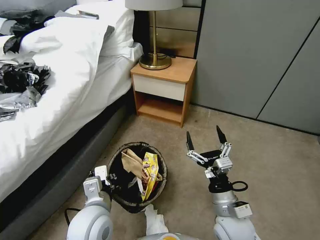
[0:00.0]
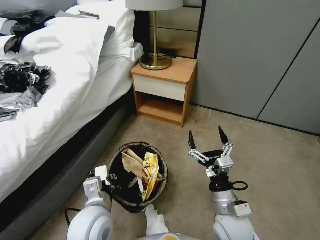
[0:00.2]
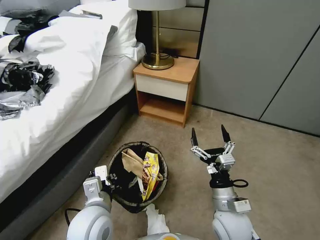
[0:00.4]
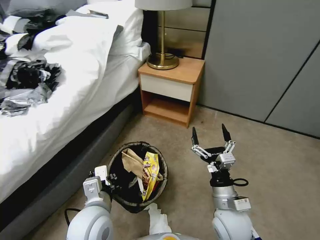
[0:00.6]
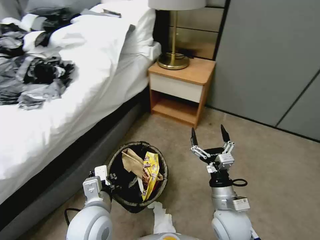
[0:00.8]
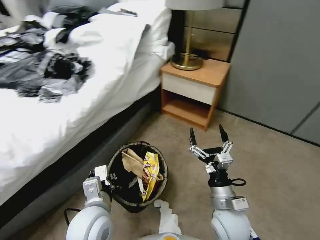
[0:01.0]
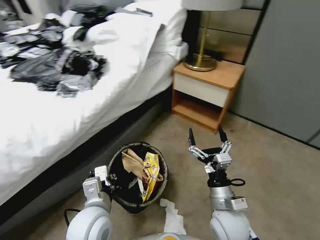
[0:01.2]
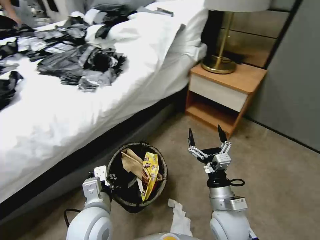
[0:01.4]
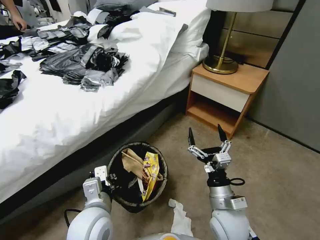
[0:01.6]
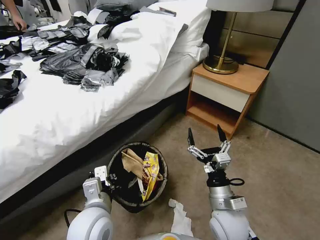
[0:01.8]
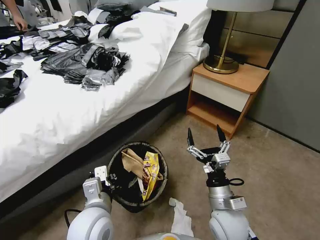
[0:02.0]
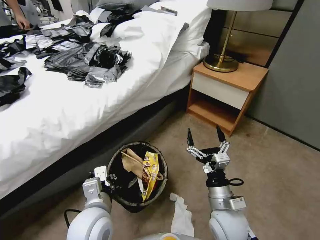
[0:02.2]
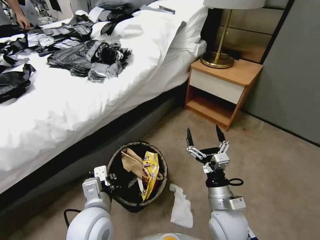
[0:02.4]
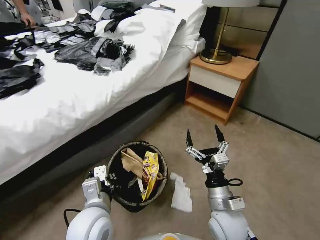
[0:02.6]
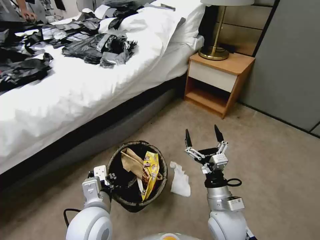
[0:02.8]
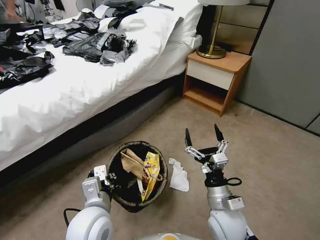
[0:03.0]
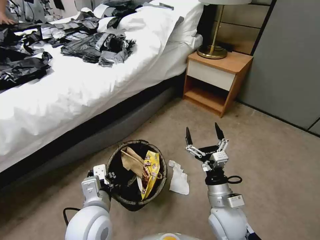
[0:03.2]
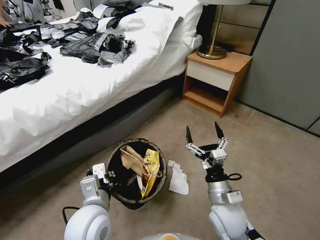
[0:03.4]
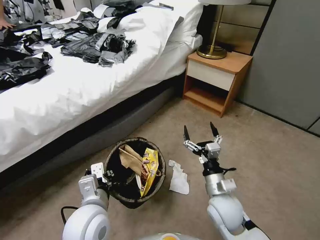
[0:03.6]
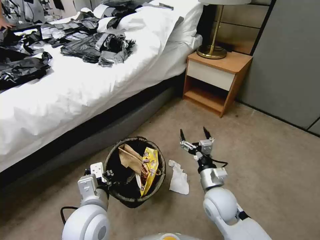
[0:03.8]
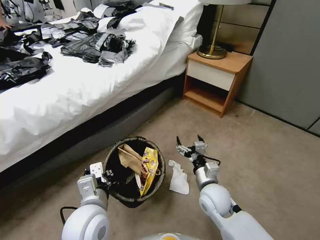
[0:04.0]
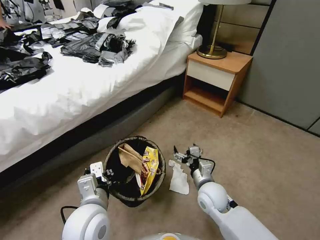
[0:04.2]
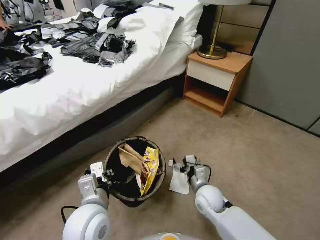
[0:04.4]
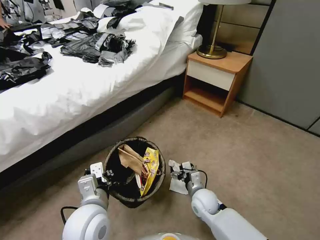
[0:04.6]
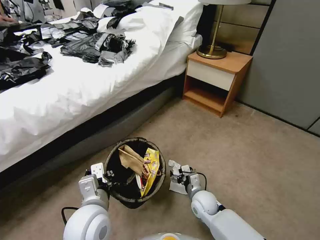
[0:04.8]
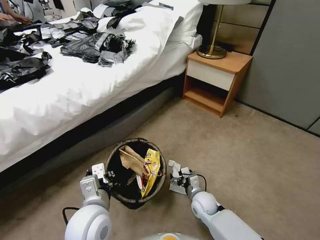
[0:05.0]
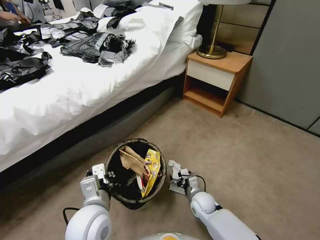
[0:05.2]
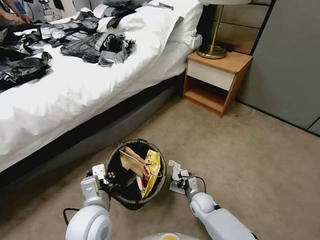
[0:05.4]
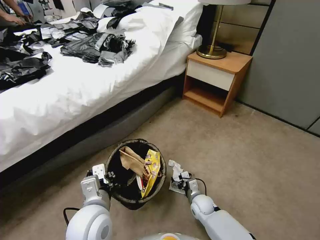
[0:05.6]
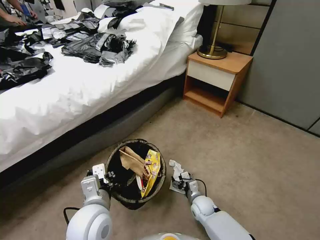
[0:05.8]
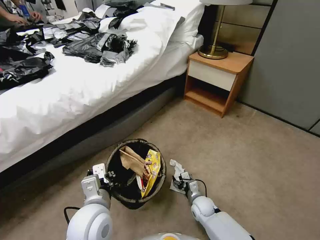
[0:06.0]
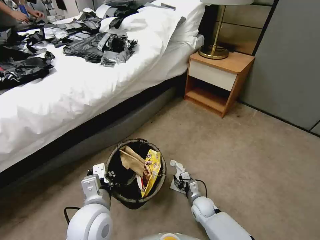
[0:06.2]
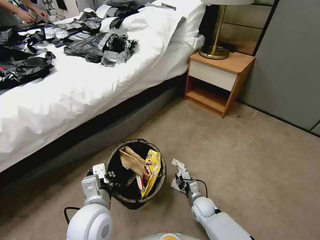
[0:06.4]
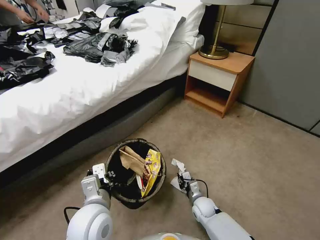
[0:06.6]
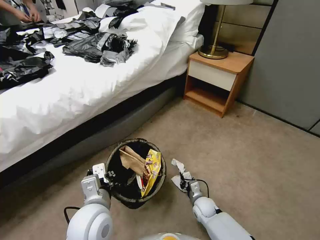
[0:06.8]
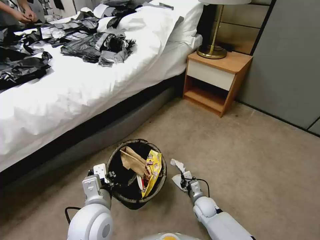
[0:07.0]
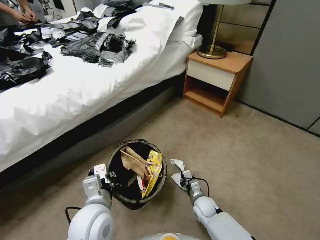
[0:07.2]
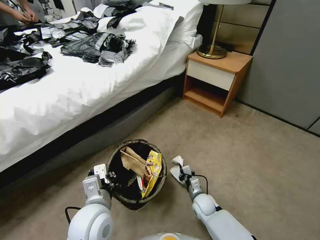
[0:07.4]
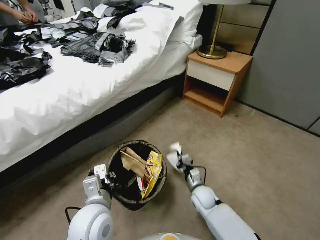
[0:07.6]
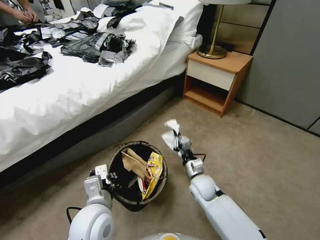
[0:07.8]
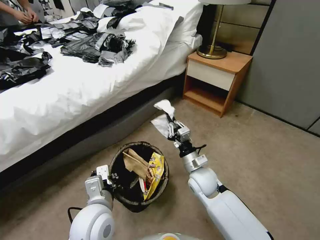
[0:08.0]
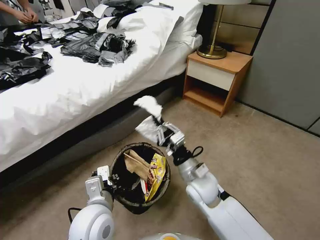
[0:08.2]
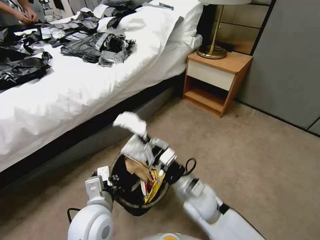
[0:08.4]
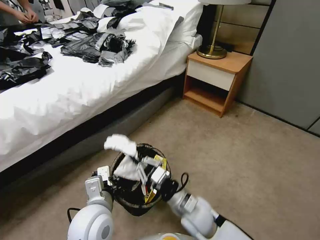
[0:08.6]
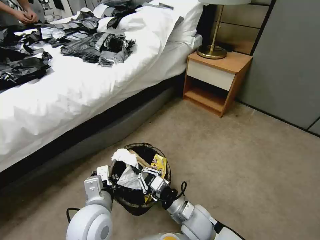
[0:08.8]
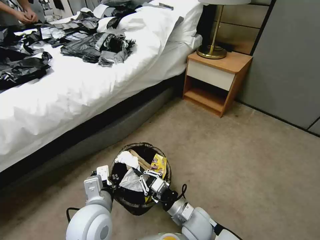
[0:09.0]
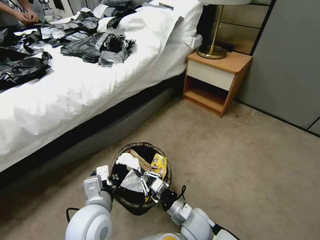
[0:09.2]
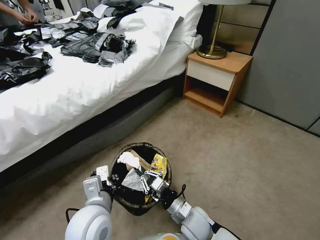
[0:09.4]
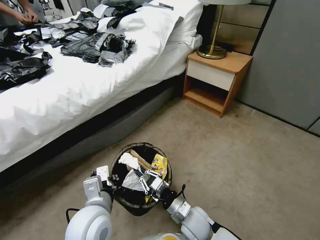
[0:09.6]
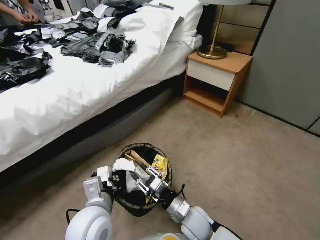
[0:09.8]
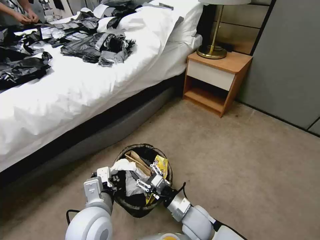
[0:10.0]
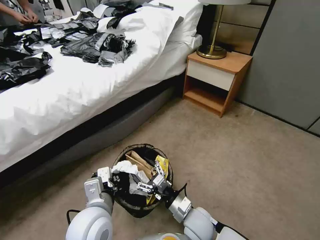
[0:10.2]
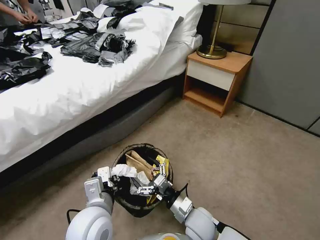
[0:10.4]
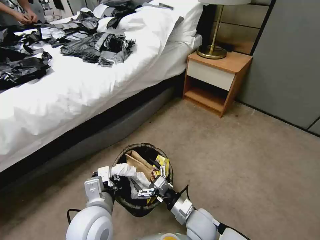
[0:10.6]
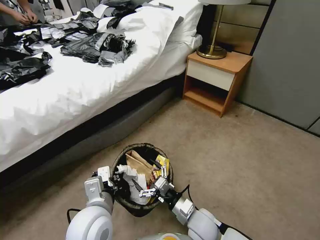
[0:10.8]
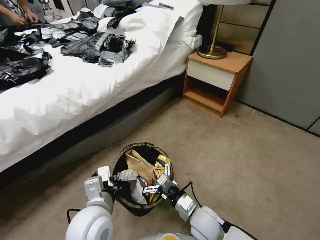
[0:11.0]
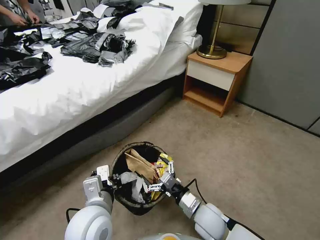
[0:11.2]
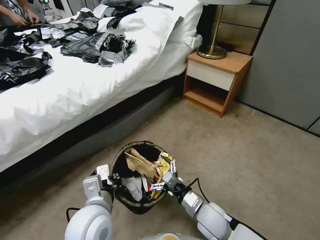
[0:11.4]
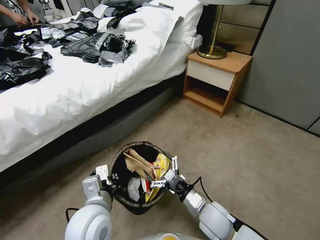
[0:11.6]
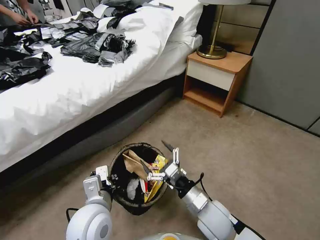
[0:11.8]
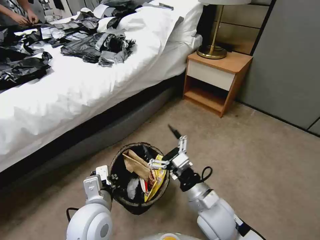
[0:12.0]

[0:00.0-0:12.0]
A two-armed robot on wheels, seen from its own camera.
Task of the whole recording: Pick up the trash bin, then pick up the garbage from the floor and place it into the trash bin.
0:03.0 to 0:04.4: The right gripper heads forward and downward, covering about 10 cm.
0:04.4 to 0:06.0: The right gripper is displaced downward by approximately 15 cm.
0:06.0 to 0:07.6: The right gripper heads upward, covering approximately 5 cm, and closes its fingers.
0:07.6 to 0:09.0: The right gripper moves backward, upward and to the left, approximately 15 cm.
0:09.0 to 0:10.4: The right gripper opens.
0:10.4 to 0:12.0: The right gripper heads upward, covering about 10 cm.

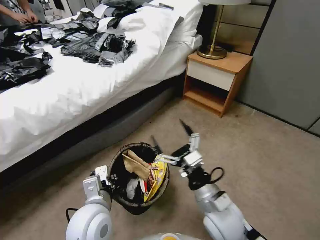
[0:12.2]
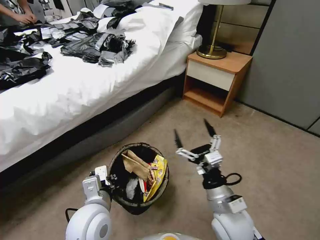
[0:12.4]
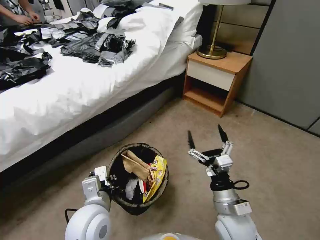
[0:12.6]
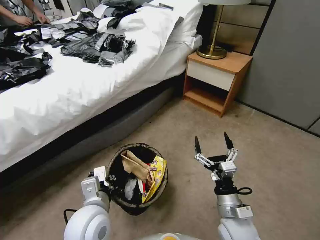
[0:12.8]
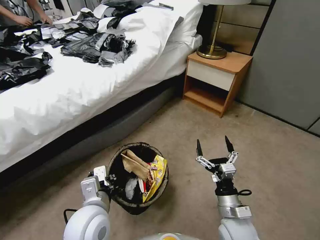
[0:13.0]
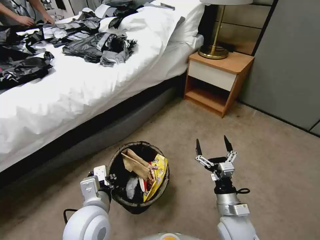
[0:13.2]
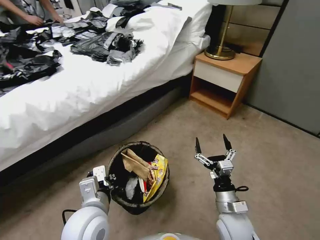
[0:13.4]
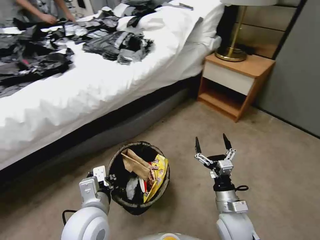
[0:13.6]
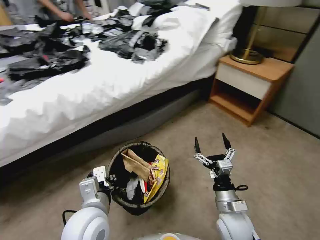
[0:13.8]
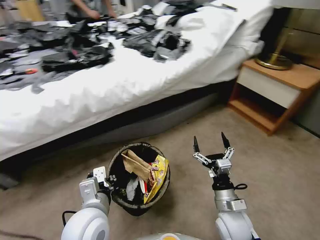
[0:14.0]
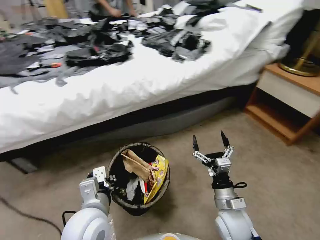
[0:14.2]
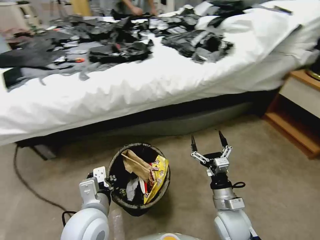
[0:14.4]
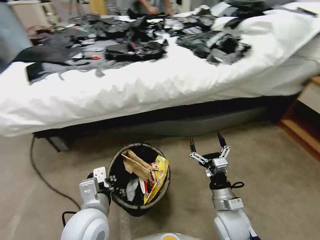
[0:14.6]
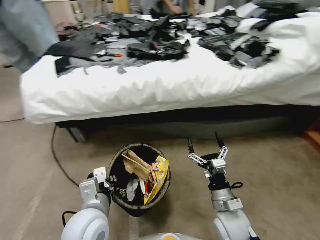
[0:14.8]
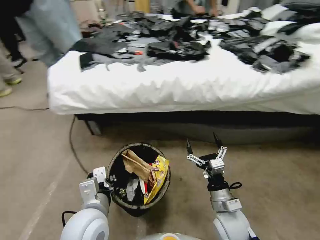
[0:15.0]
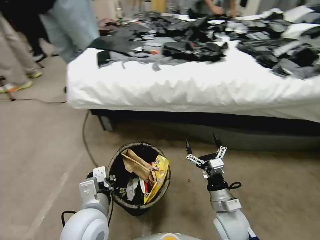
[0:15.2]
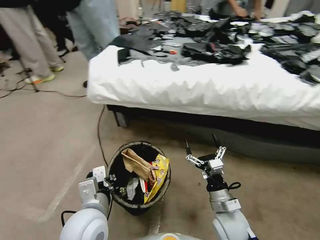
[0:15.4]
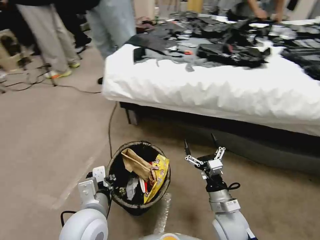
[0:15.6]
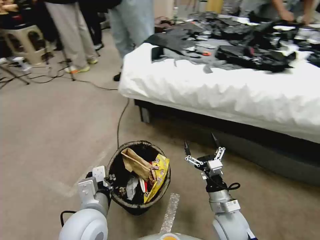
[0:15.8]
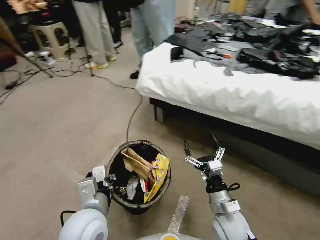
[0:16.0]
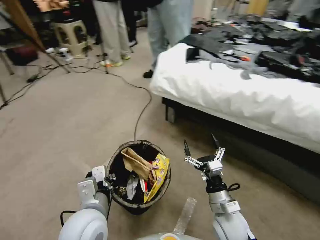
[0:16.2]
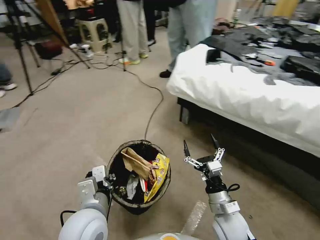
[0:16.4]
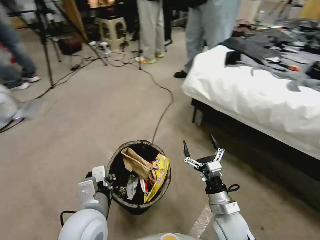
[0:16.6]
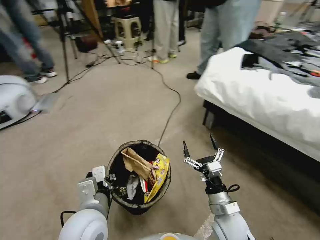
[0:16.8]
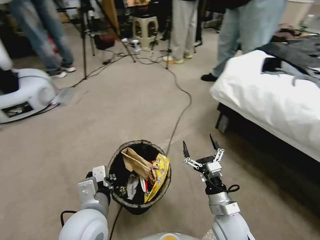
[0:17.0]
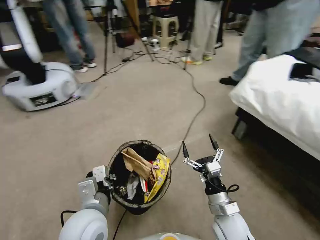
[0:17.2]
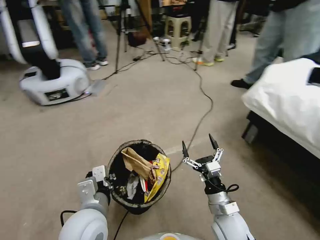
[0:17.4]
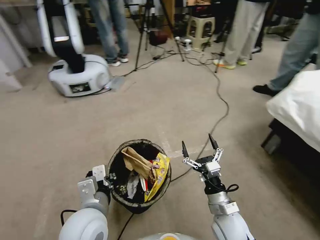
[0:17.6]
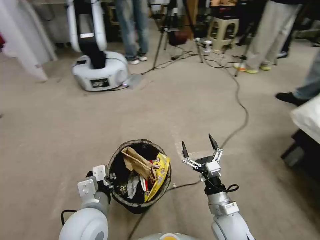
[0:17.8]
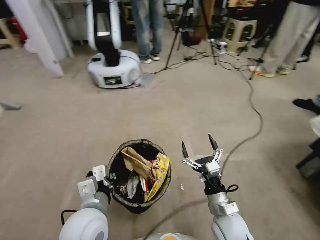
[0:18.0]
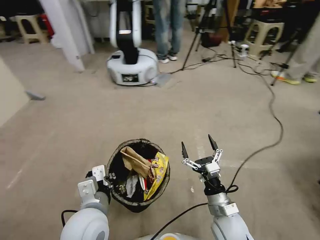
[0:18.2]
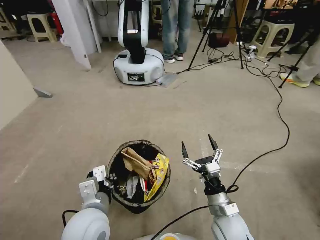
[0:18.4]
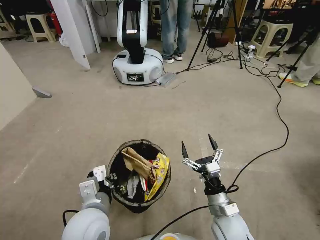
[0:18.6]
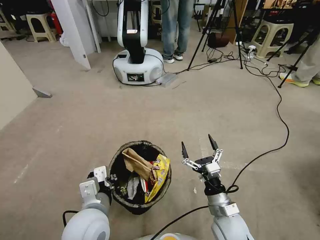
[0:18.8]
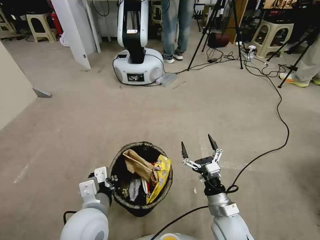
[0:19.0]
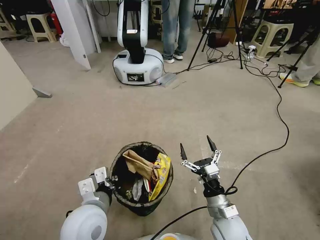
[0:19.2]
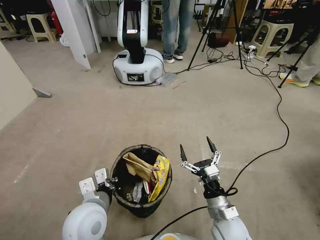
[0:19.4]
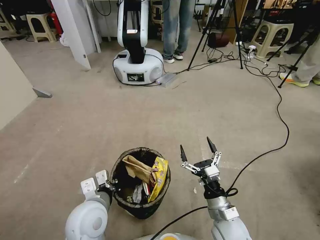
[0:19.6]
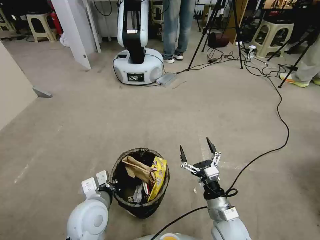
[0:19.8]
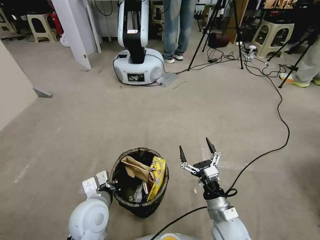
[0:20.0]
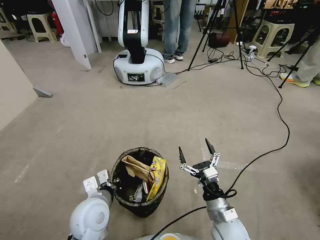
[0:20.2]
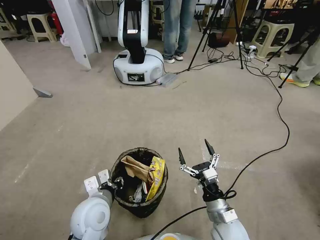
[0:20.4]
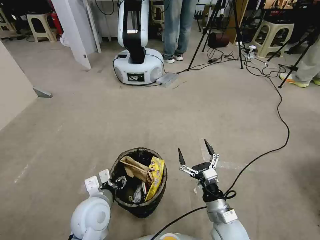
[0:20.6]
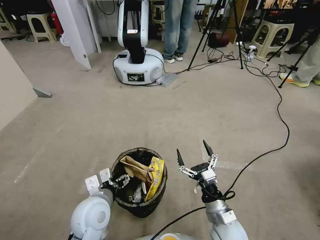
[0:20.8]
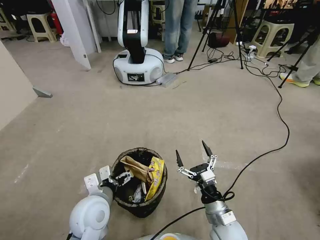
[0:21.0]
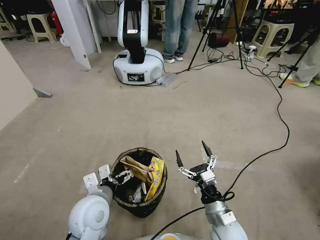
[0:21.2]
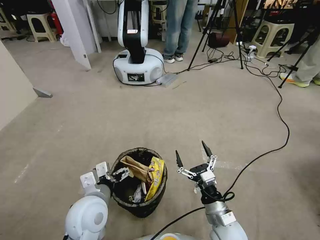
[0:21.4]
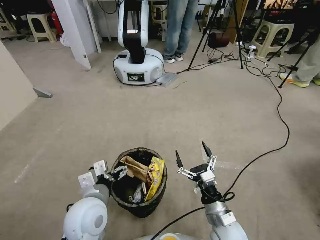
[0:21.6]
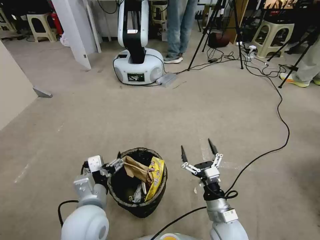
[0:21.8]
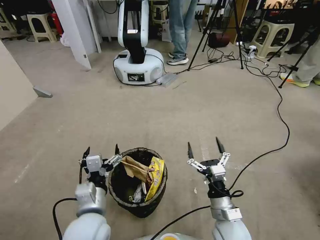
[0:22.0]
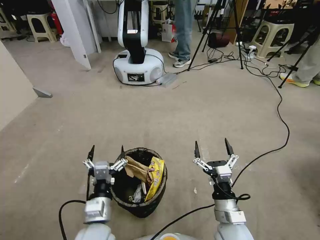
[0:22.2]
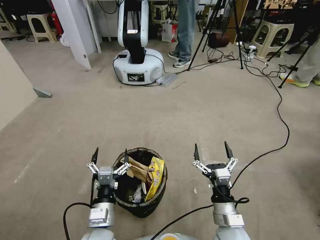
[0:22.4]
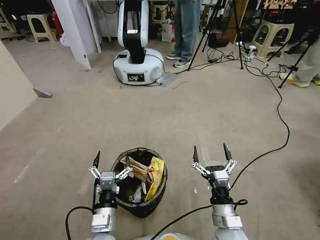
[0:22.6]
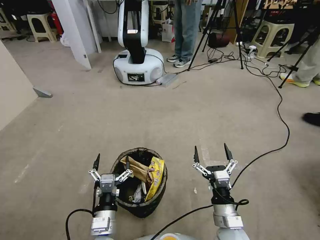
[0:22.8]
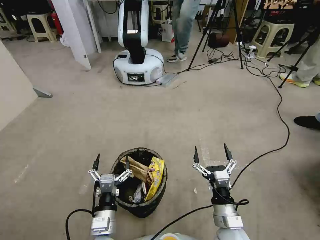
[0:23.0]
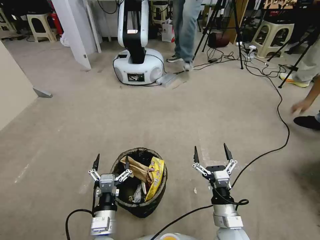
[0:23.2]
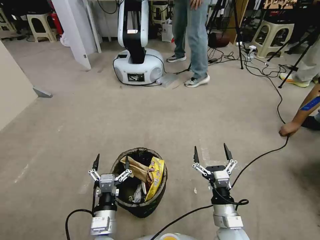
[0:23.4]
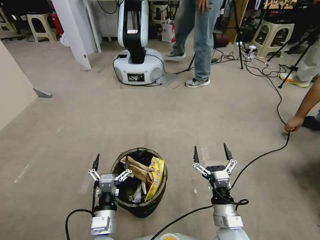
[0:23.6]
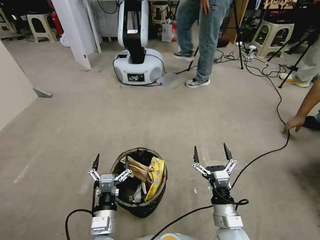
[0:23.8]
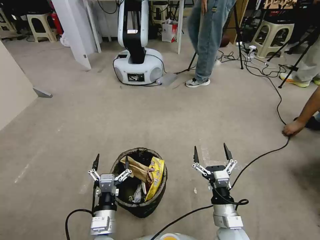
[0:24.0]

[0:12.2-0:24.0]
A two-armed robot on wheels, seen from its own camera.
Task of the whole recording: Pick up the trash bin, then pick up the garbage from the floor and place it into the trash bin.
0:12.2 to 0:13.6: The right gripper heads downward and to the right, covering about 10 cm.
0:18.2 to 0:19.6: The left gripper shifts by approximately 5 cm.
0:19.6 to 0:21.0: The left gripper opens up.
0:21.0 to 0:22.6: The left gripper goes approximately 10 cm backward and downward.
0:22.6 to 0:24.0: Neither gripper changes place.
